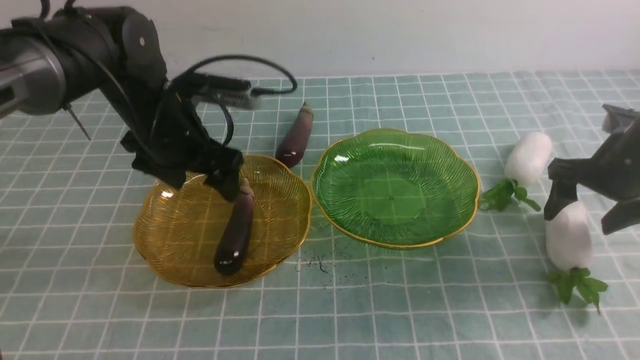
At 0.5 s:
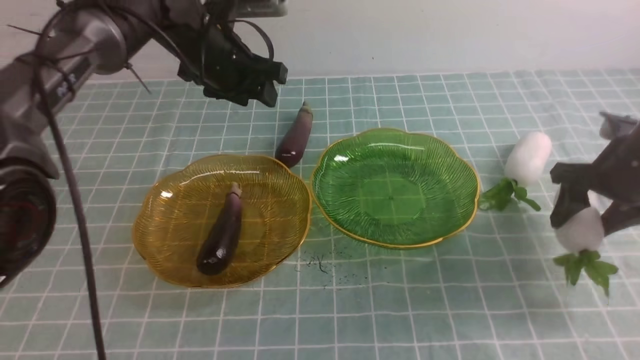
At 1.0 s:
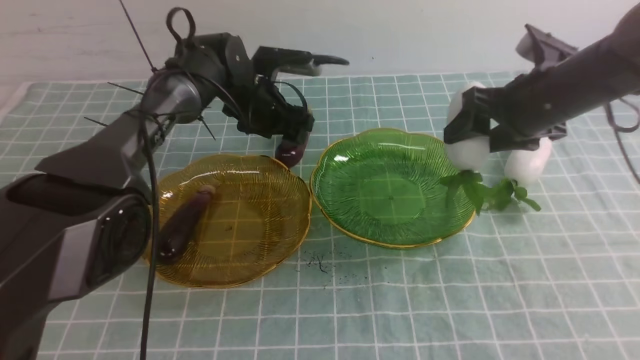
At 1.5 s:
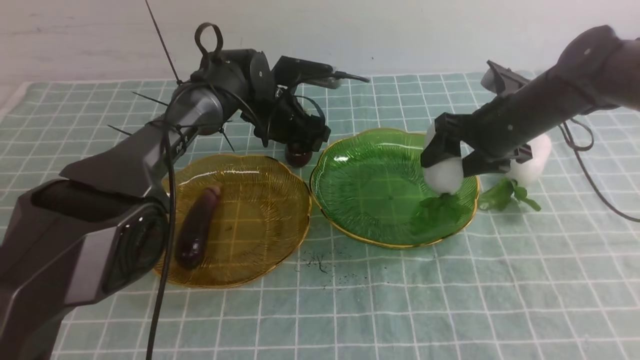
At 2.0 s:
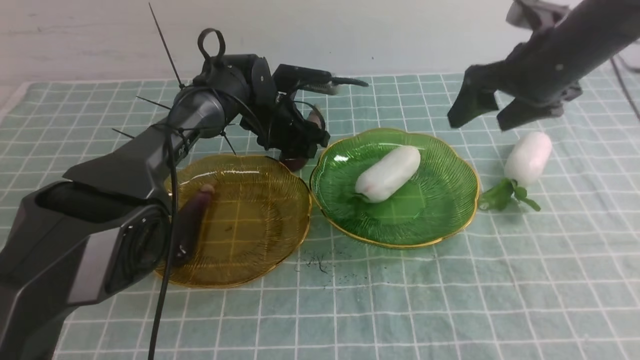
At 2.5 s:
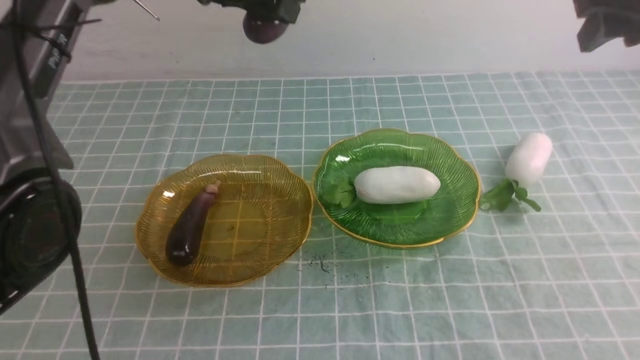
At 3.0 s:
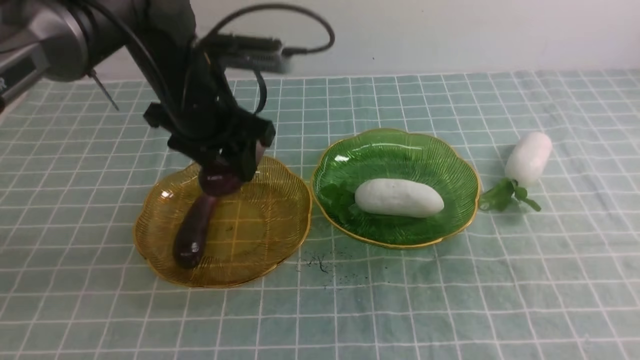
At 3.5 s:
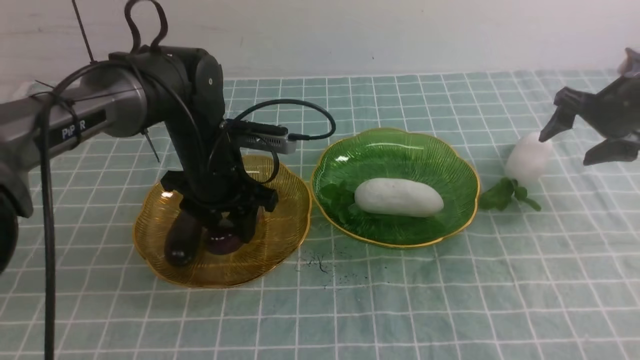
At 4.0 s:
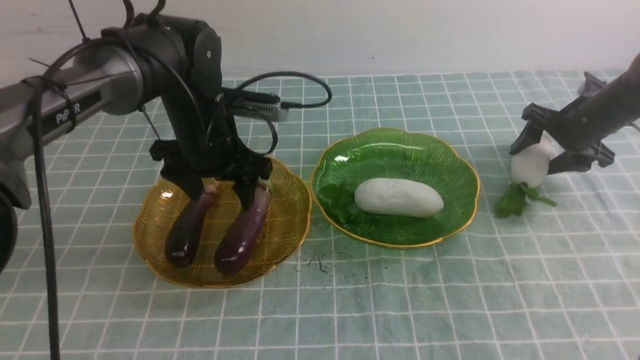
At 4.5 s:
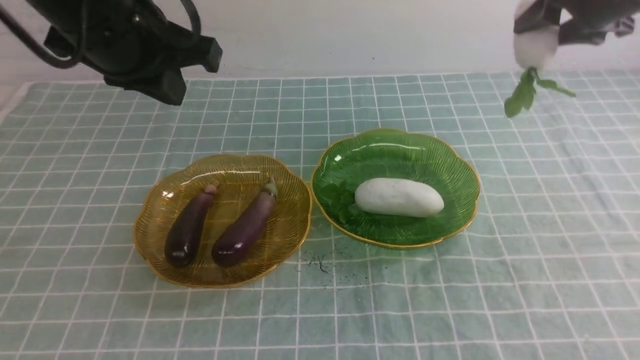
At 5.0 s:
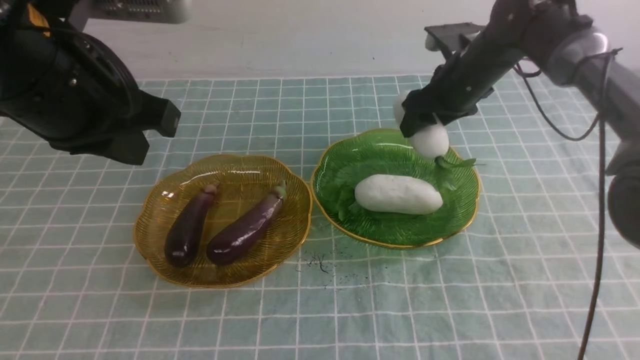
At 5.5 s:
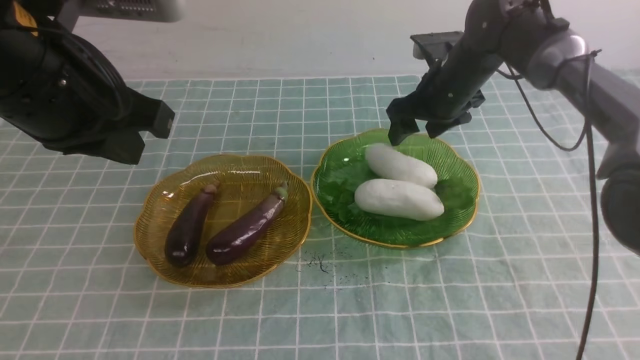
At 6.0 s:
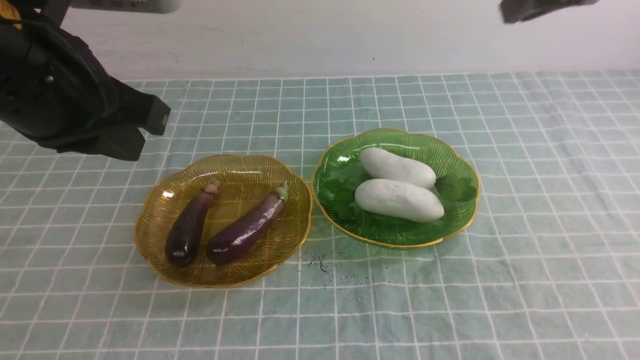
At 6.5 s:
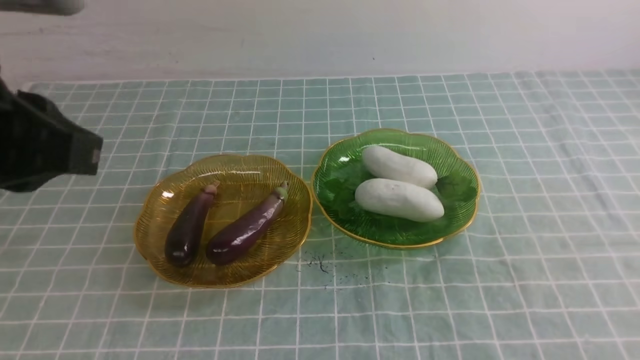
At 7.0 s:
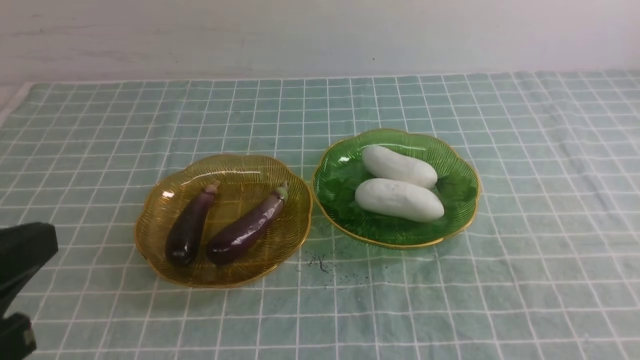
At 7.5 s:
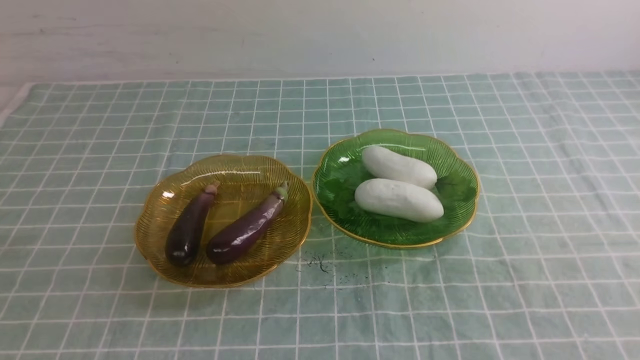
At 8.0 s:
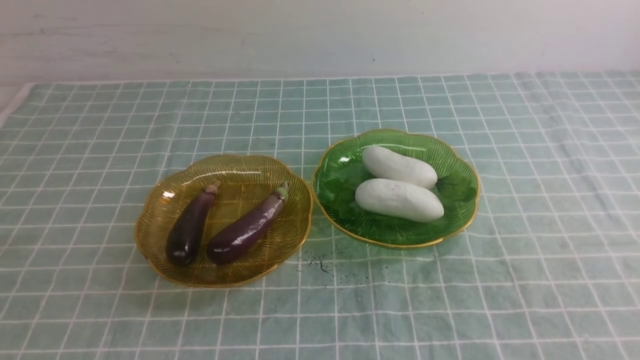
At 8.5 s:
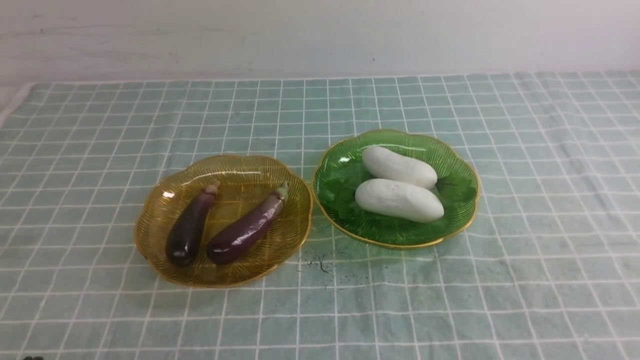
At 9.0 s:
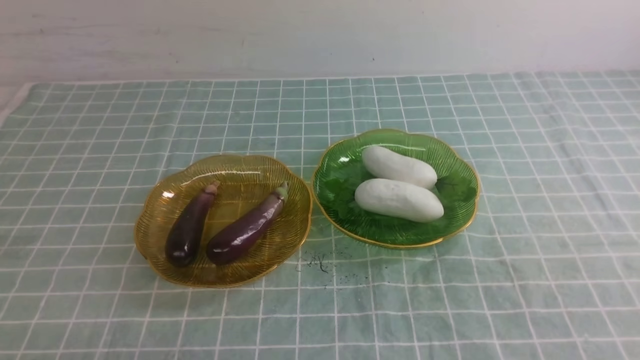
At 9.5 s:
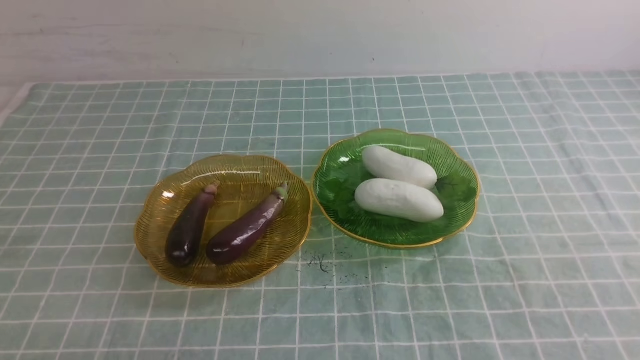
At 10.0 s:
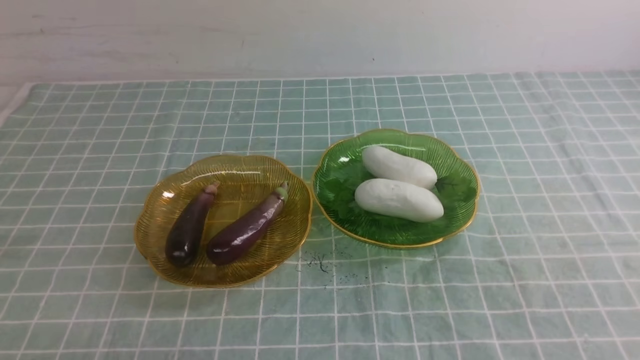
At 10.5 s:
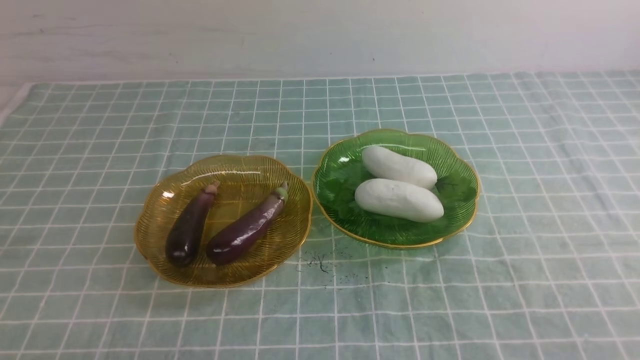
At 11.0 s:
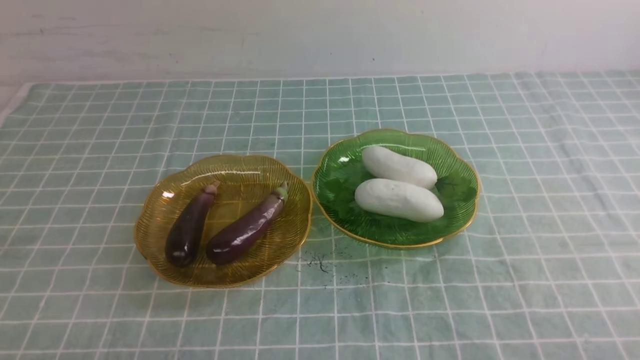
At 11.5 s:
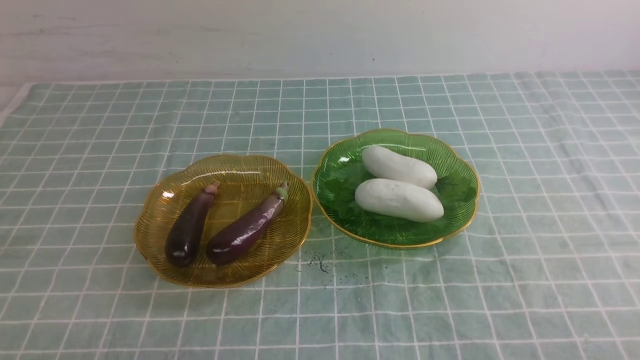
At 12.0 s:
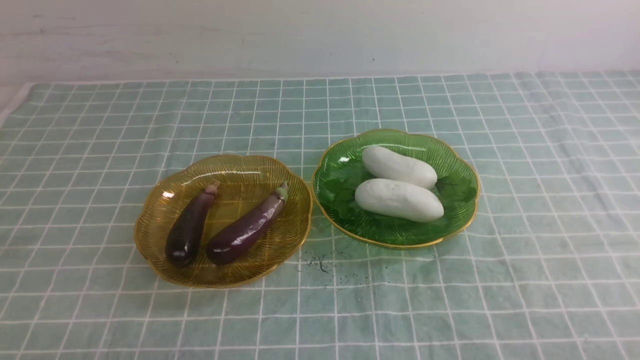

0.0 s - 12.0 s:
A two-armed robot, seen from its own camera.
Step, 0.0 s - 1.5 s: use the right arm to grab a radish and put it into the right plate.
Step, 2.0 s - 3.5 s: use the left arm to grab an eggplant and put it into the left plate.
Step, 4.0 s - 5.0 s: use the right arm to grab a radish and put it into the right plate.
0.0 s - 2.0 s: The right gripper swings up and down, some 10 cm each way, with 2 reversals. The left gripper goes some 15 cm forward, to the right and downward.
2.0 s - 4.0 s: The right gripper shifts some 20 cm downward, to the right and forward, and closes, then reopens, while the left gripper swings up and down, about 20 cm each way, with 2 reversals.
4.0 s - 6.0 s: The left gripper shifts about 20 cm backward and upward, and closes up. Meanwhile the right gripper swings up and down, approximately 25 cm each way, with 2 reversals, and closes.
6.0 s - 8.0 s: The right gripper is displaced backward by roughly 30 cm, while the left gripper shifts some 20 cm backward and downward.
